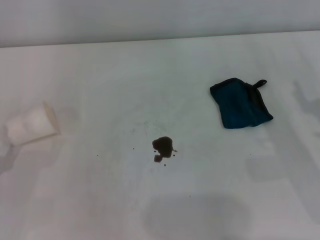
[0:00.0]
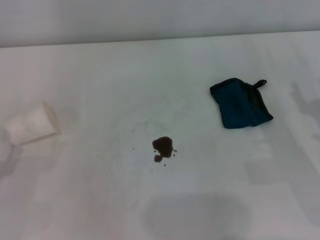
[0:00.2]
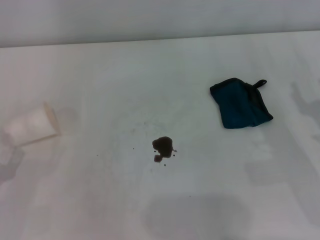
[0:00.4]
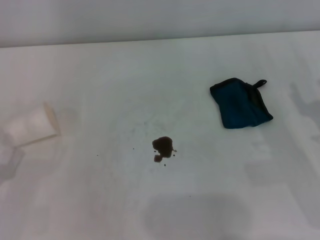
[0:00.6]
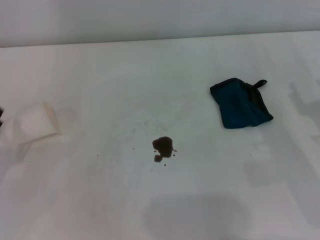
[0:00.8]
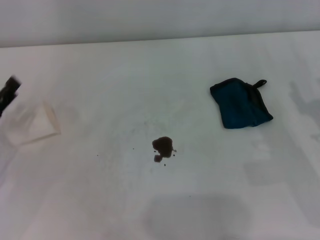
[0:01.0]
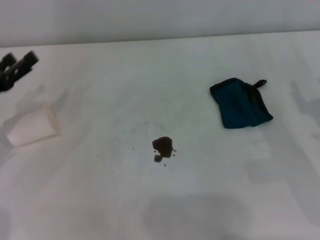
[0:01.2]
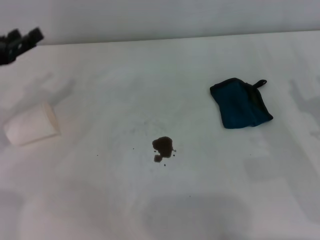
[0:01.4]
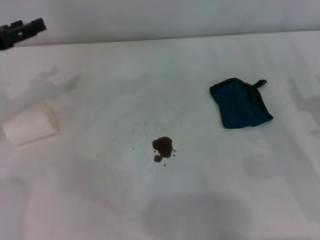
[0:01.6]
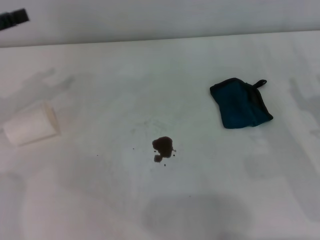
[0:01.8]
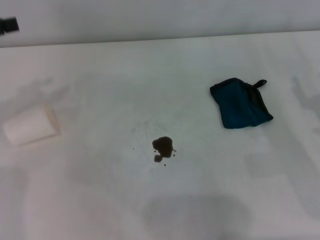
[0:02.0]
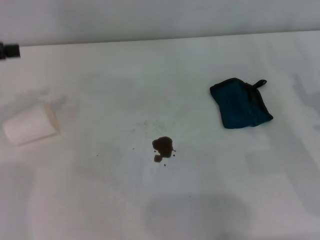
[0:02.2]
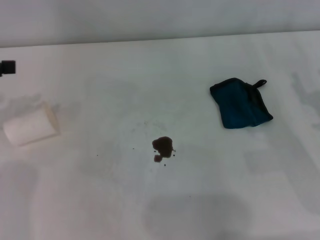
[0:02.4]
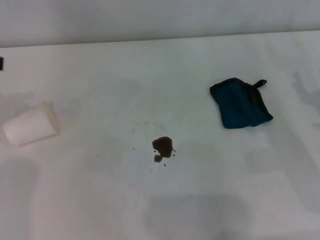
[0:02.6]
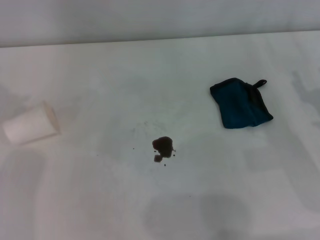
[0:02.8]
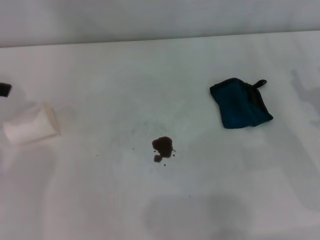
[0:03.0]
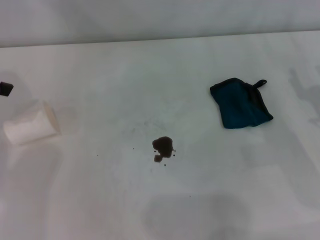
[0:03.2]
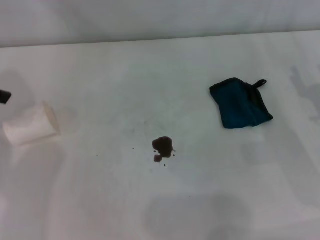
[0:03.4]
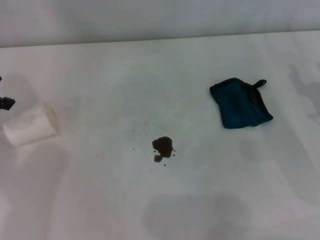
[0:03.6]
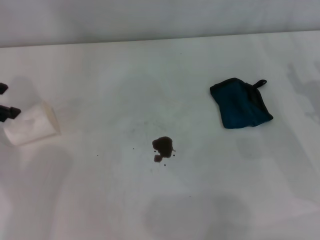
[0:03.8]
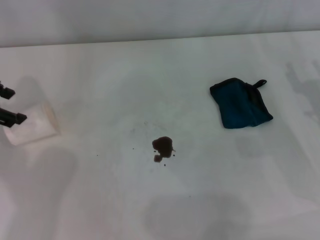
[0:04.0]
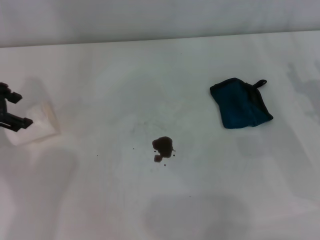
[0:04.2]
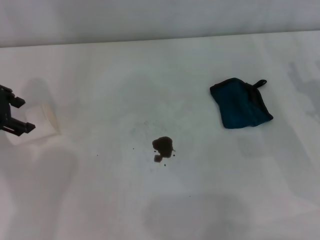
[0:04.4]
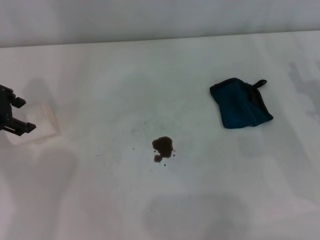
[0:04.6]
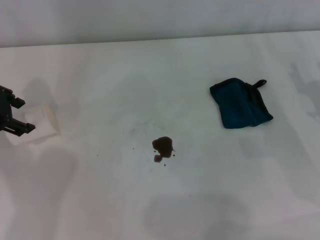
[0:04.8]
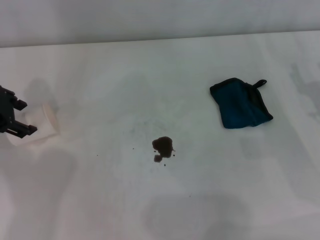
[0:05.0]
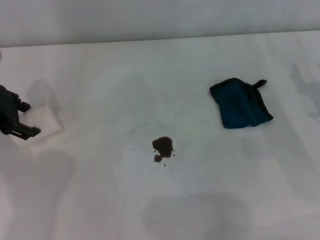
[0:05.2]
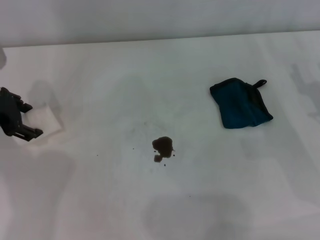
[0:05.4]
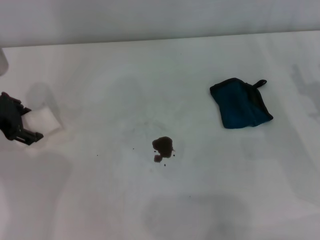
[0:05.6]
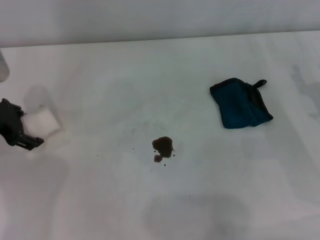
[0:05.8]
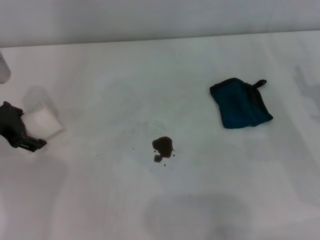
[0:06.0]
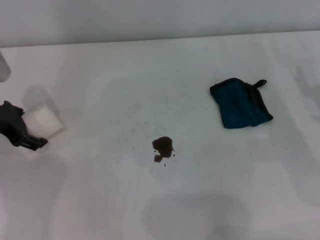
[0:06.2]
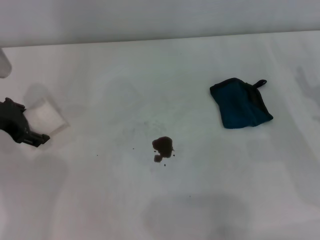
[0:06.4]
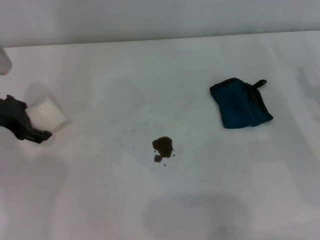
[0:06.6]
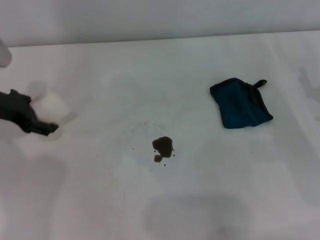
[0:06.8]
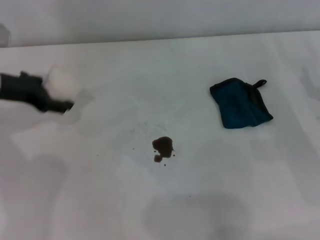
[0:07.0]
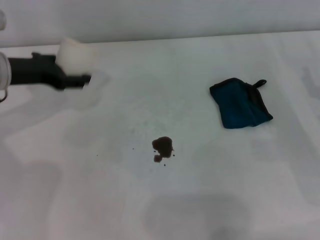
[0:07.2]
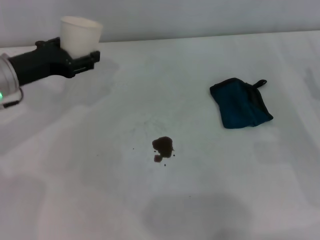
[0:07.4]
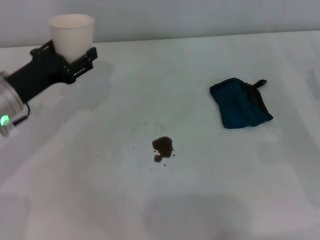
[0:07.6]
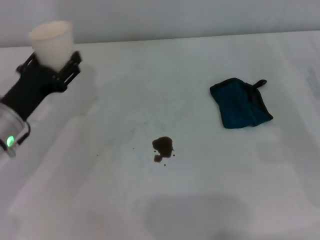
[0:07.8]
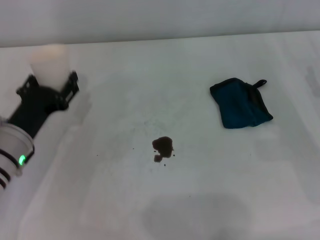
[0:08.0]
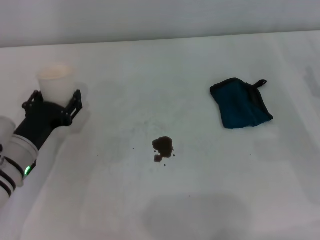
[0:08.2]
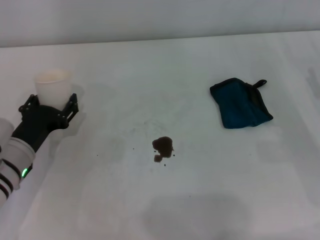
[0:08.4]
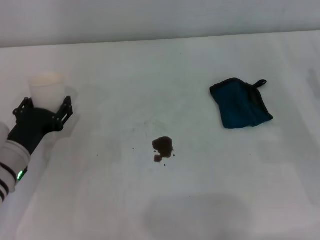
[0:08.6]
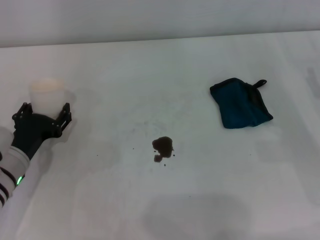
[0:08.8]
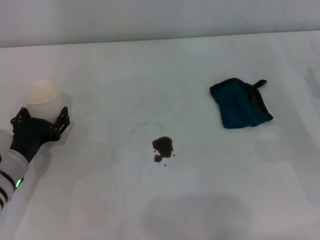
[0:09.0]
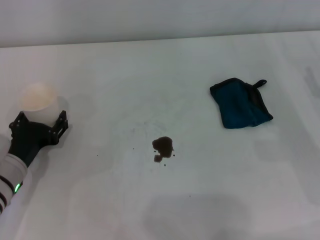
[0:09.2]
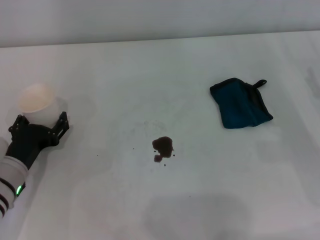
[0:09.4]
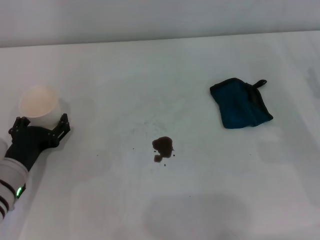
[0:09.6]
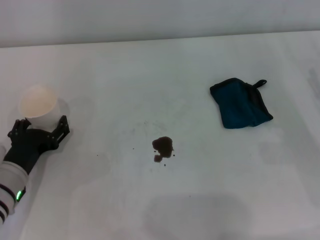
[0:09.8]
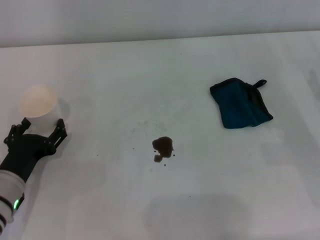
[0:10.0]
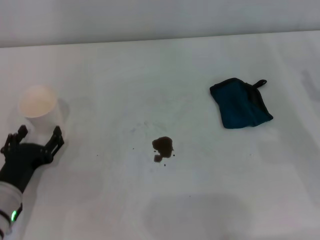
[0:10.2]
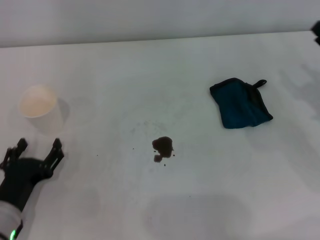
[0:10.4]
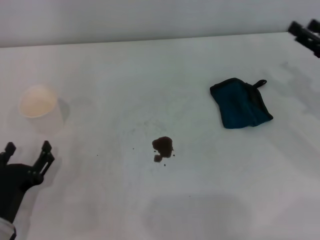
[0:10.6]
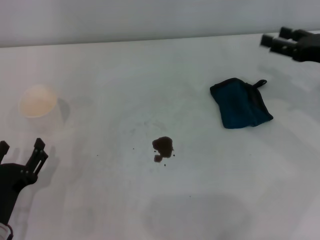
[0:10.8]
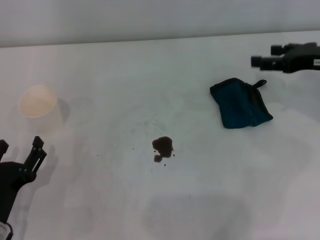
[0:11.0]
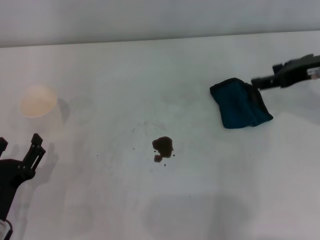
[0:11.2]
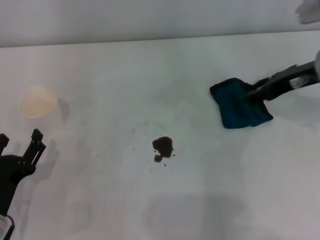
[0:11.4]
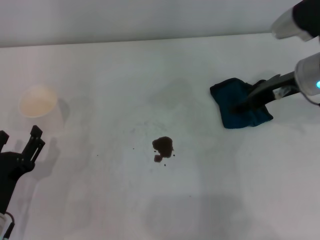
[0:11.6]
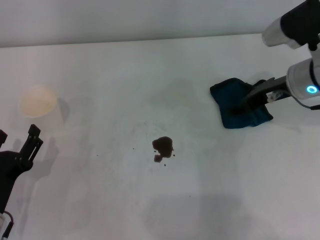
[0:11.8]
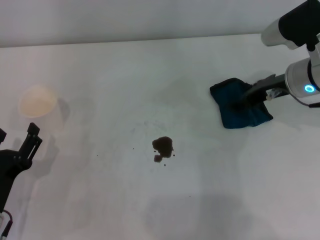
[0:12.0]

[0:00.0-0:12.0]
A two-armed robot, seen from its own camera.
Step, 0.0 to 6.0 s: Grasp the paper cup with the left gripper.
Step, 6.2 to 10.0 s: Stand the paper cup upright with the left gripper.
0.0 to 1.6 s: The left gripper is displaced forward and upward by about 20 cm.
1.6 to 3.0 s: The left gripper goes some 10 cm upward, and closes its fingers.
3.0 to 4.4 s: The left gripper goes about 5 cm downward.
4.4 to 6.0 s: The left gripper is displaced downward by some 5 cm.
6.0 to 7.6 s: The left gripper ends up roughly 5 cm from where it was.
7.6 to 9.0 s: The left gripper heads downward and backward, covering about 10 cm.
9.0 to 10.4 s: The left gripper heads backward, covering about 10 cm, and opens.
10.4 to 12.0 s: The right gripper shifts some 15 cm to the left and forward.

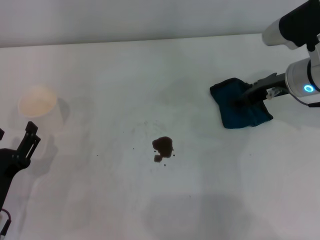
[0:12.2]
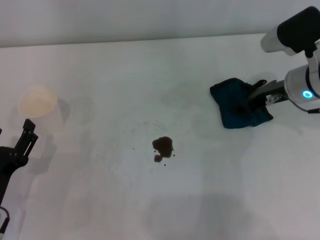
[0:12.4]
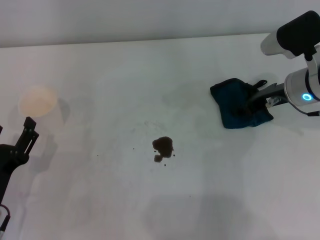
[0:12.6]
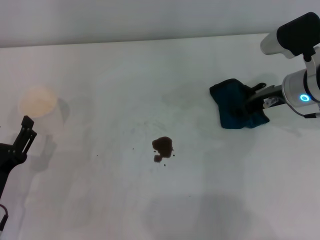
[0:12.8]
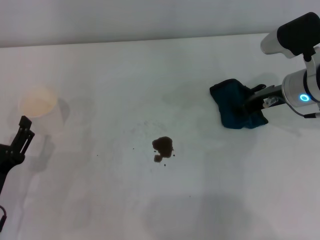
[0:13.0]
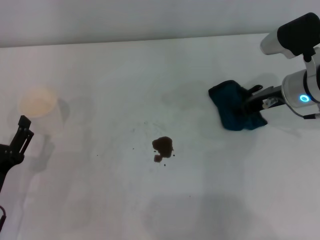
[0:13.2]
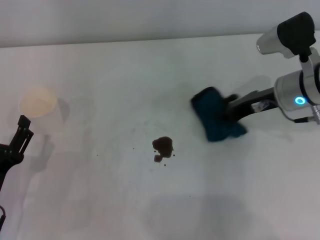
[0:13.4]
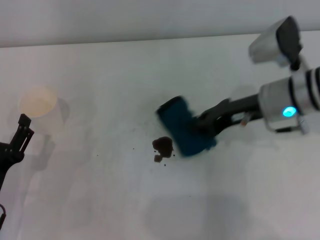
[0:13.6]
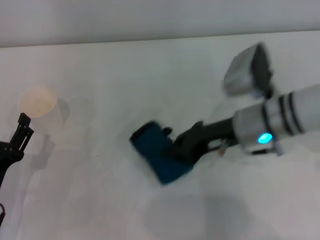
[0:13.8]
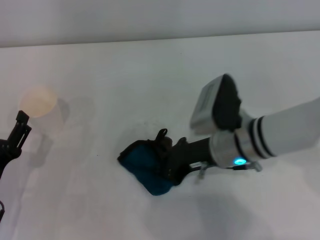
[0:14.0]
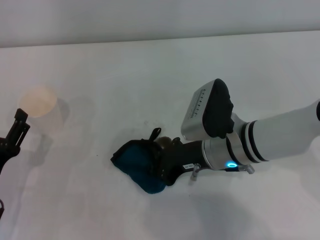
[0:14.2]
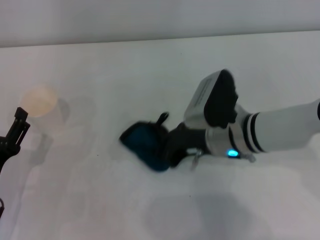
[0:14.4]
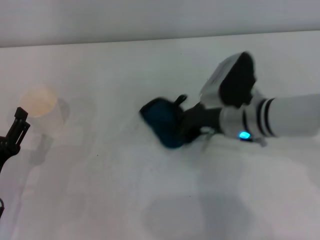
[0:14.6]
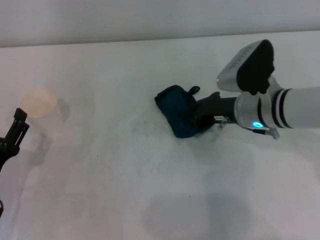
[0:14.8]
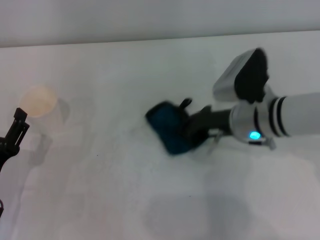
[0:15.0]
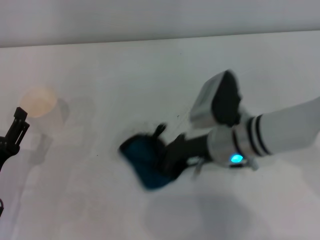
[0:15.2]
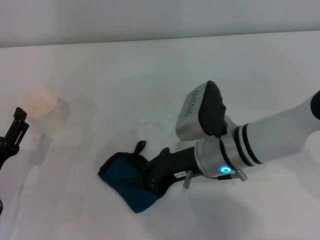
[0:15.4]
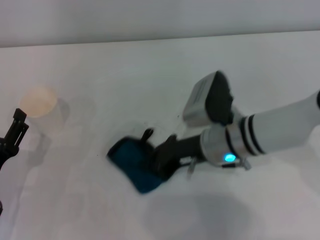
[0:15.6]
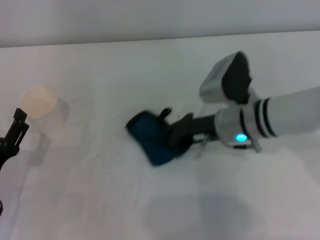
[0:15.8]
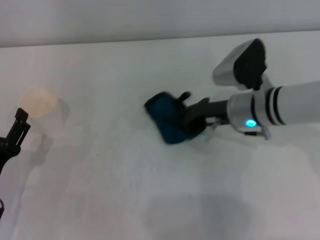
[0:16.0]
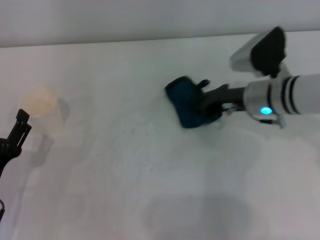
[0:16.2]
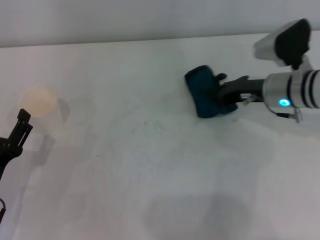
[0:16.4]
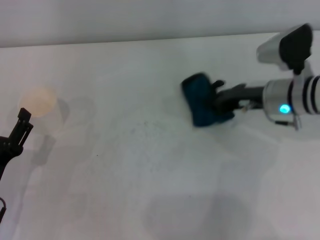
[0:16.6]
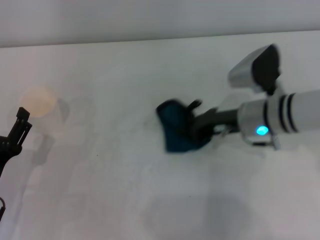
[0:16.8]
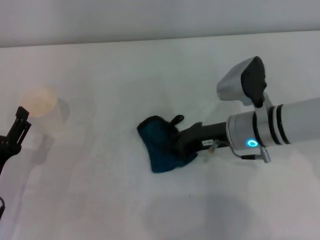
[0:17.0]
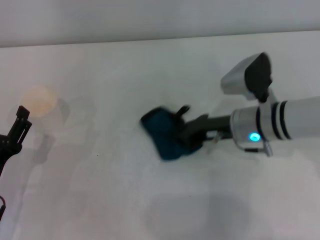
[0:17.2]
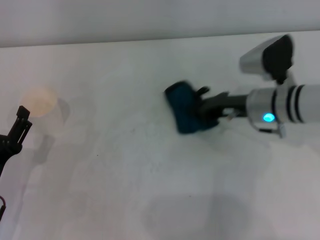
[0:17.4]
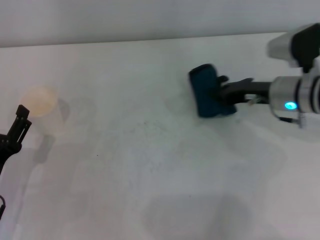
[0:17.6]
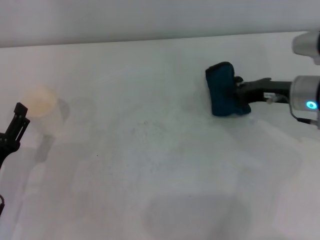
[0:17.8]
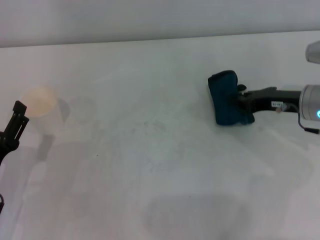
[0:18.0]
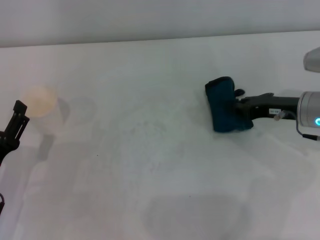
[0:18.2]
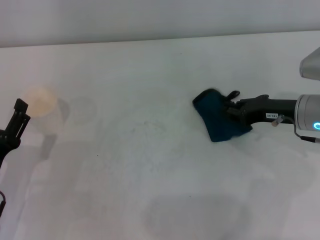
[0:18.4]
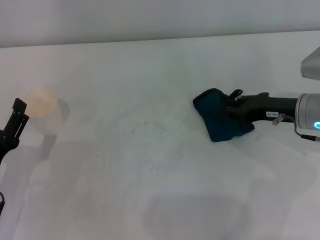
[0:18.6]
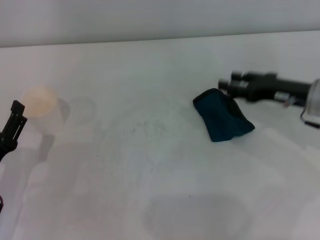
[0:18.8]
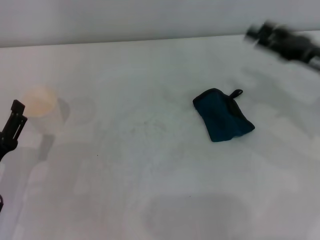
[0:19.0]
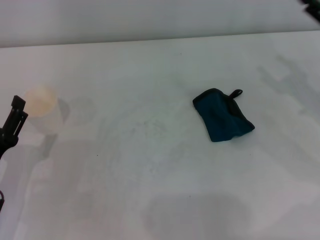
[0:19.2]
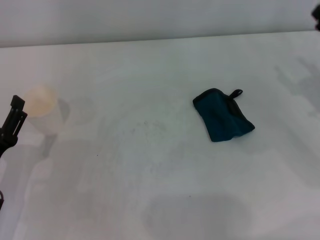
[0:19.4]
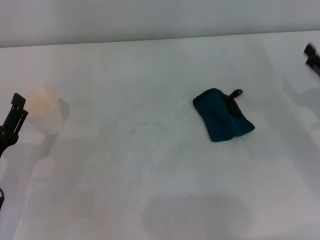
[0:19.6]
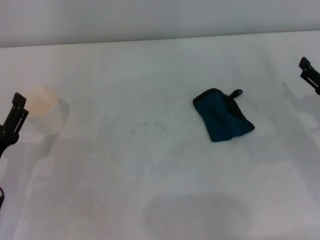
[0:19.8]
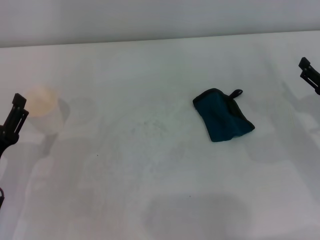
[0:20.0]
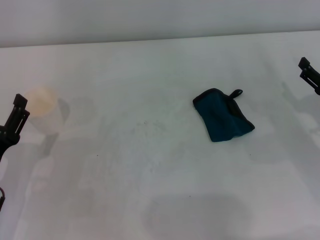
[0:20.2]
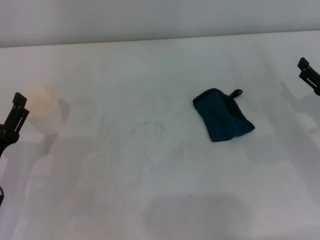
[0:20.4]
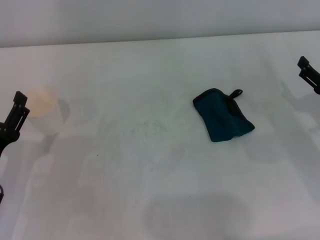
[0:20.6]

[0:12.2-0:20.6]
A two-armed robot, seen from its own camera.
Step, 13.2 to 17.6 s: Wipe the stains off the table with the right gripper.
Step, 17.8 to 18.4 s: Place the rag on the table with the right gripper.
12.2 to 13.6 s: The right gripper moves roughly 5 cm, and closes its fingers.
15.0 to 16.4 s: The right gripper goes some 5 cm to the right.
17.8 to 19.2 s: The right gripper moves to the right and backward, some 10 cm, and opens its fingers.
19.2 to 20.6 s: The right gripper is displaced downward by roughly 10 cm.

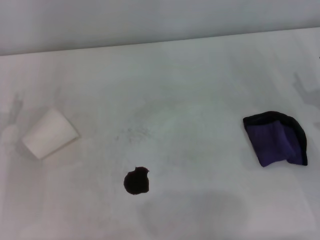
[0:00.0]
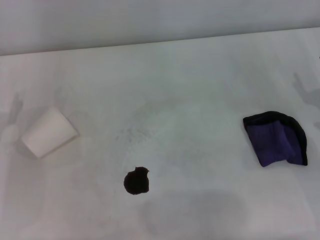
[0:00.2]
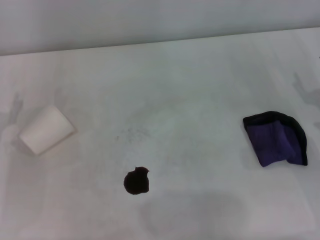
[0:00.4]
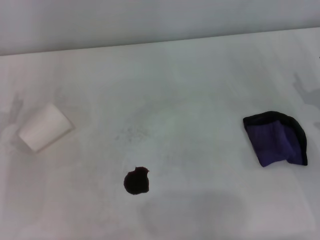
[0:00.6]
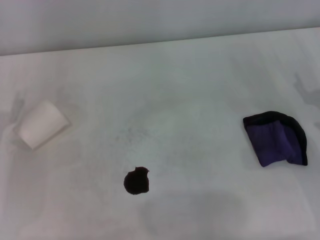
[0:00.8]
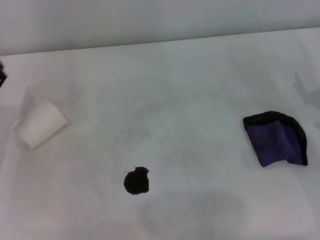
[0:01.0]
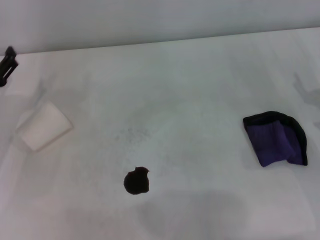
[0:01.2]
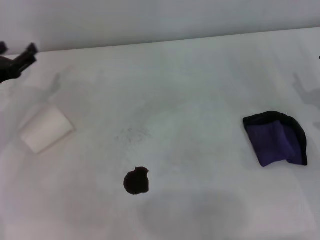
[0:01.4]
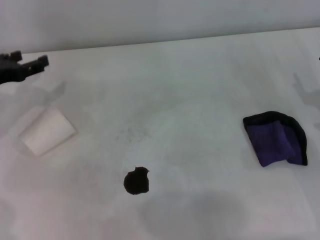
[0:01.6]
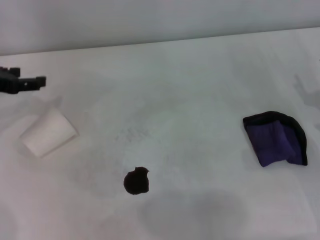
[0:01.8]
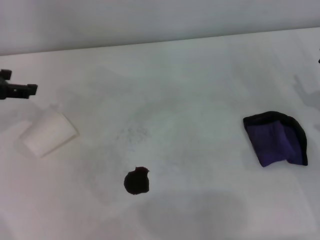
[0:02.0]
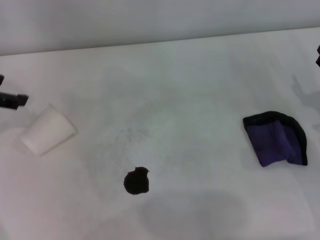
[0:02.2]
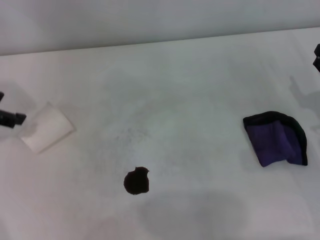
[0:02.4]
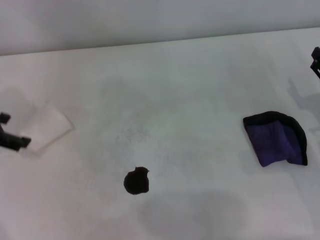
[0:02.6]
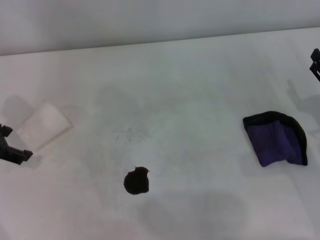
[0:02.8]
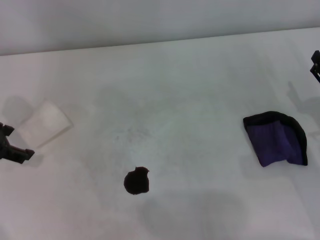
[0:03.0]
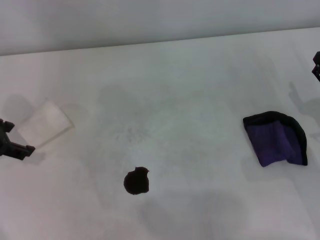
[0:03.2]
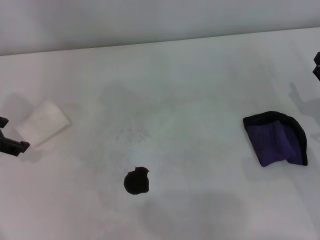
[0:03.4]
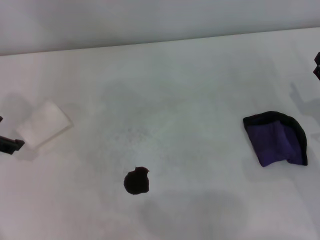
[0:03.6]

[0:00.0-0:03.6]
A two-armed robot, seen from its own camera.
0.0 to 1.8 s: The left gripper travels upward and forward by roughly 15 cm.
1.8 to 3.6 s: The left gripper shifts by approximately 5 cm.
